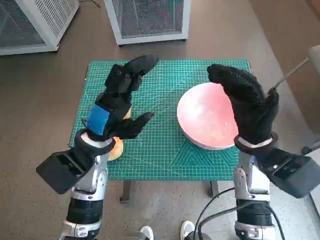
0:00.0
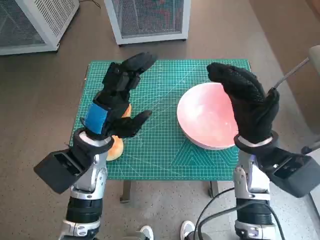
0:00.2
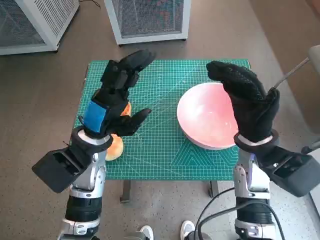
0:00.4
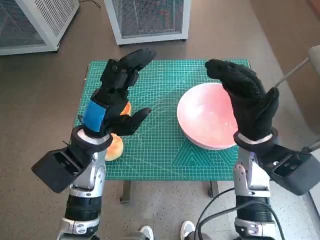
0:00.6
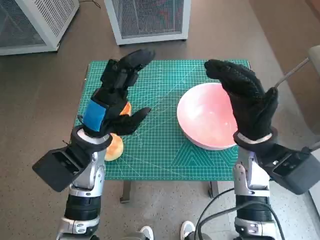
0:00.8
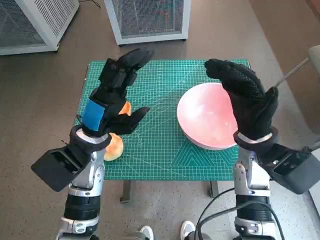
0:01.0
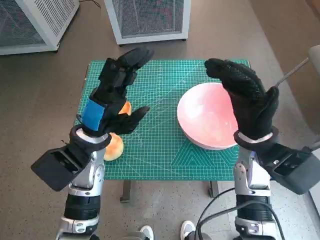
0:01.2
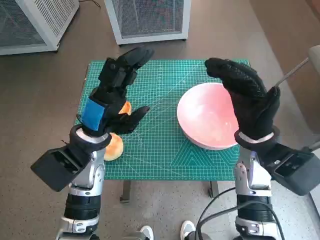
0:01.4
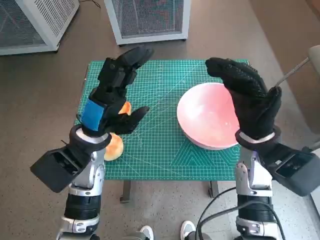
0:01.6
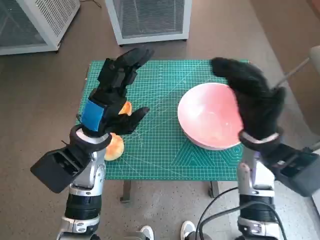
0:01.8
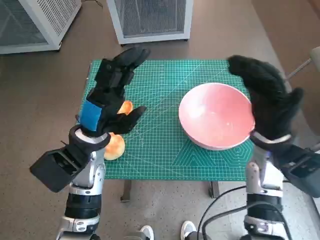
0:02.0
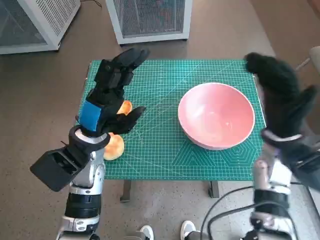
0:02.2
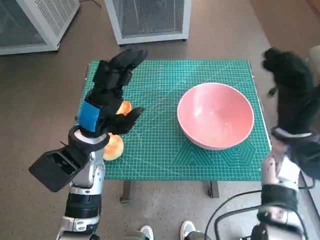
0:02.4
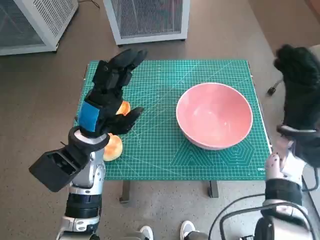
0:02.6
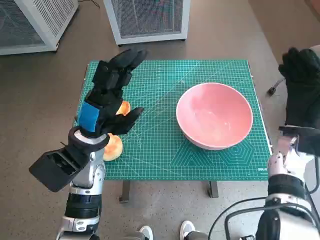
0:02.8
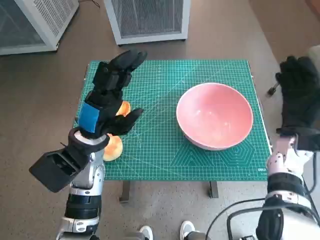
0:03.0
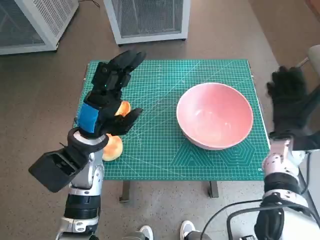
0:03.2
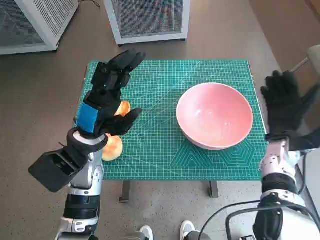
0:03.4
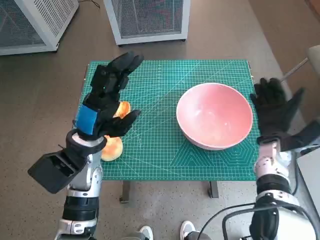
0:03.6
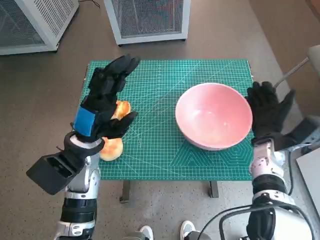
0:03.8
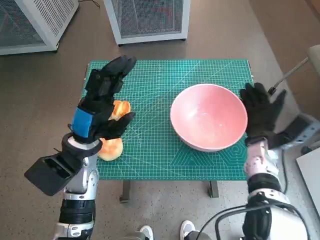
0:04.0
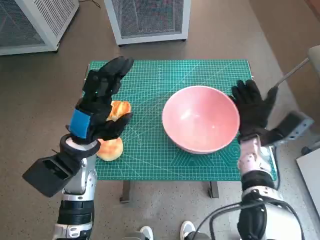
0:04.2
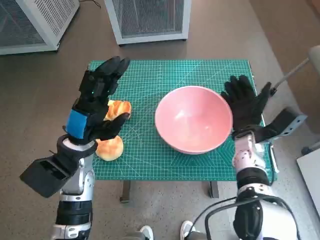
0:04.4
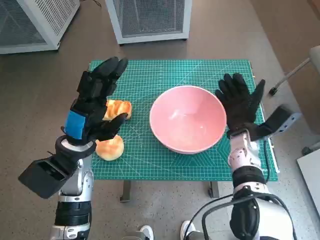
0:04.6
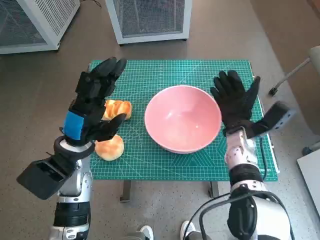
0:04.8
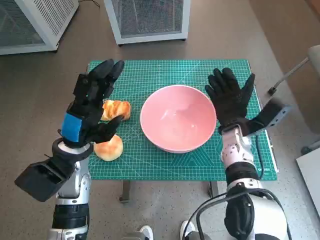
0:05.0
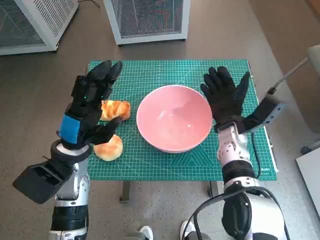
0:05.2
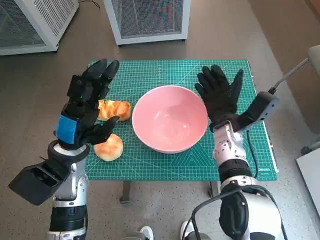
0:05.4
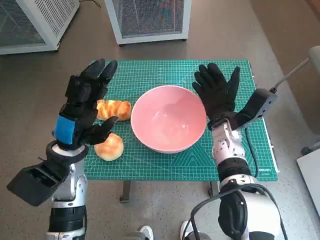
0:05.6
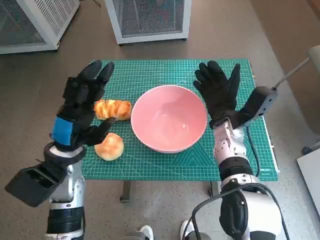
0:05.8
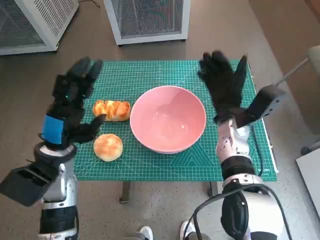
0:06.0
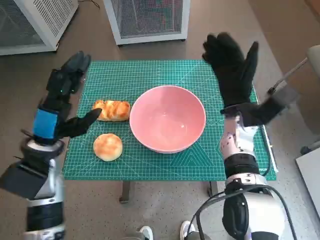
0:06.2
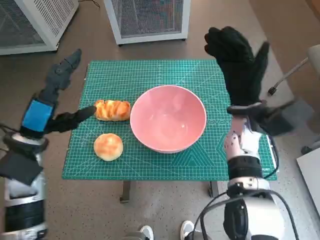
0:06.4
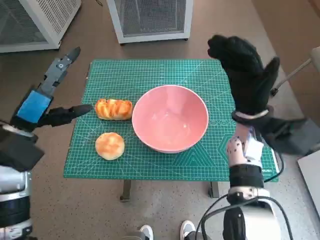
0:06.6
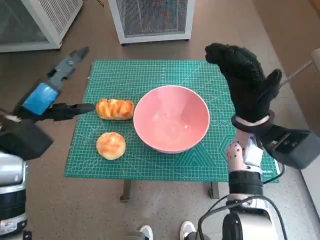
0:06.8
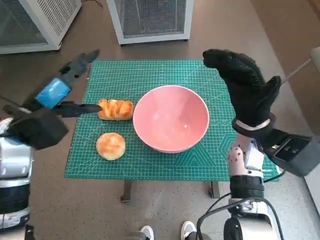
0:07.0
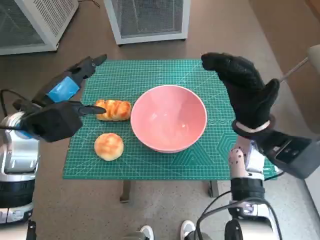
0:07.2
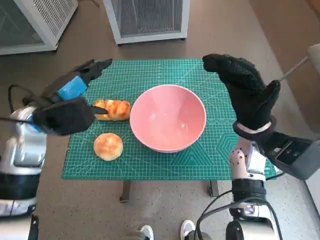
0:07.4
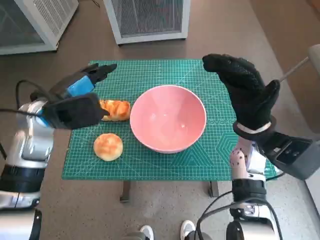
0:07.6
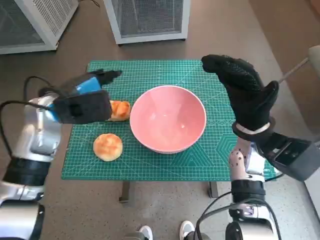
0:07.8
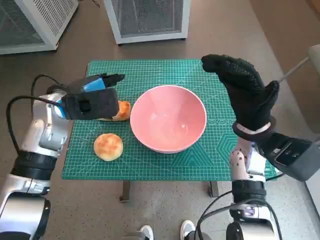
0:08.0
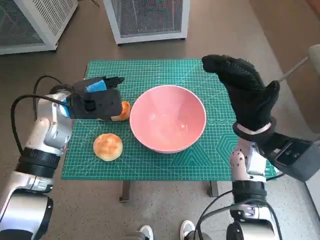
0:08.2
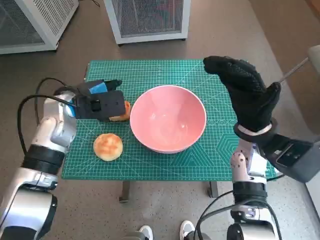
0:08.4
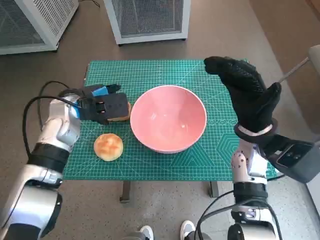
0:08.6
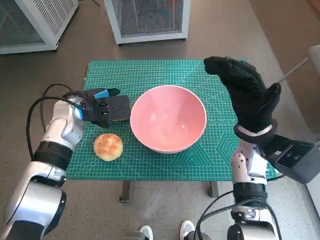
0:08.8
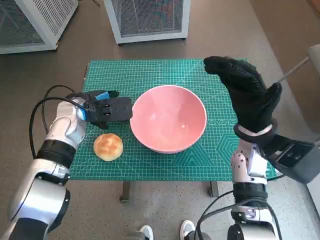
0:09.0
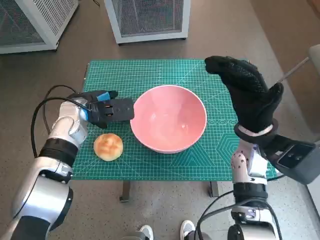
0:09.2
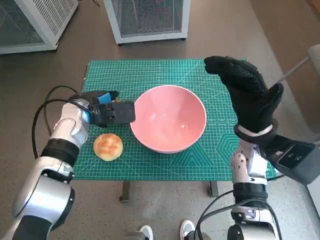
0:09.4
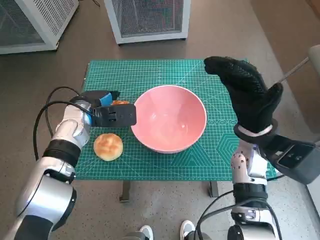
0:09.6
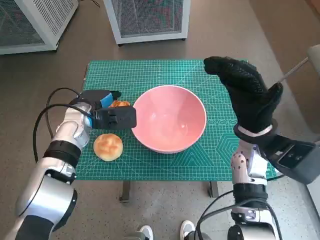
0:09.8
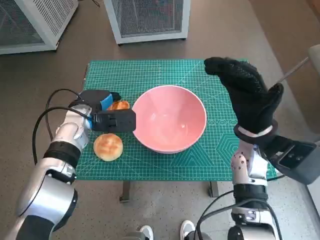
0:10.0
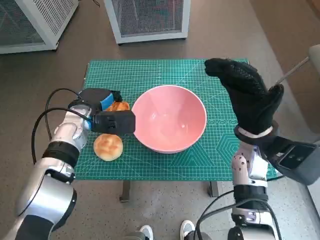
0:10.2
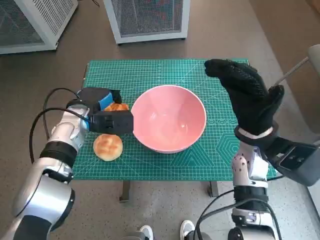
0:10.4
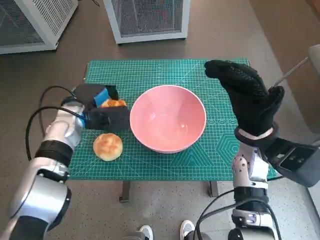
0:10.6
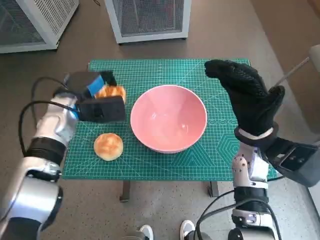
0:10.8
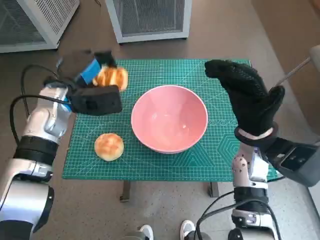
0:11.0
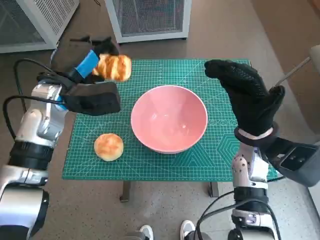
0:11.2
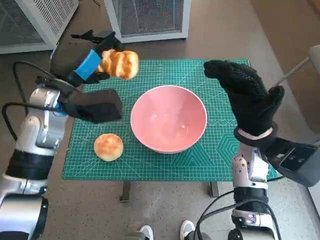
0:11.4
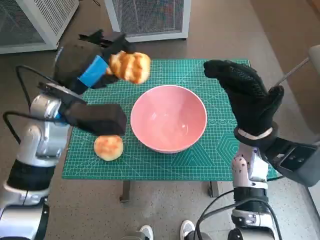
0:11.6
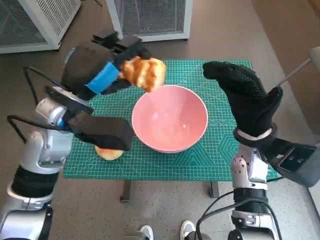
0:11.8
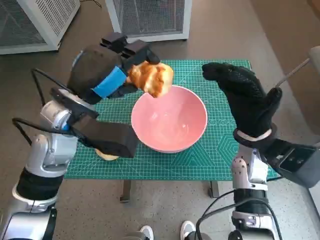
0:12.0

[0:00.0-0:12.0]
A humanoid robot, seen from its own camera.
Task of the whole recording: Push the bowl into the center of the table and put the bread into the bowl.
Step, 0:00.0 to 0:05.8: Move the pink bowl to the center of table with right hand.
Step, 0:06.0 to 0:10.0: Grasp the long bread with left hand.
0:01.6 to 0:03.0: The right hand goes about 10 cm to the right.
0:03.0 to 0:04.4: The right hand heads to the left, covering approximately 5 cm.
0:04.4 to 0:06.0: The right hand goes about 5 cm to the left.
0:06.0 to 0:07.6: The left hand is displaced upward and forward by approximately 10 cm, while the right hand moves roughly 5 cm.
0:07.6 to 0:09.0: The left hand goes about 5 cm downward.
0:09.0 to 0:10.4: There are only small adjustments of the hands.
0:10.4 to 0:12.0: The left hand moves upward and backward, some 15 cm.

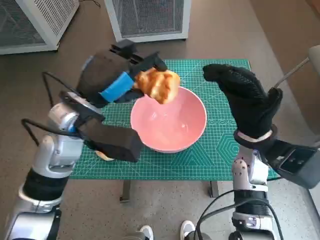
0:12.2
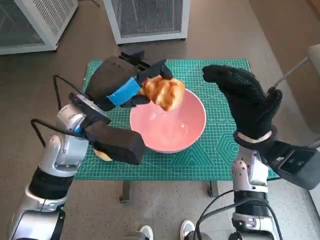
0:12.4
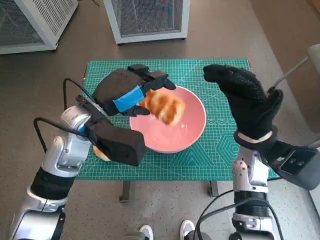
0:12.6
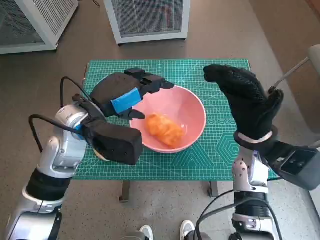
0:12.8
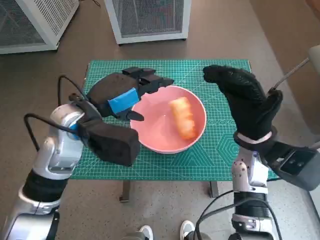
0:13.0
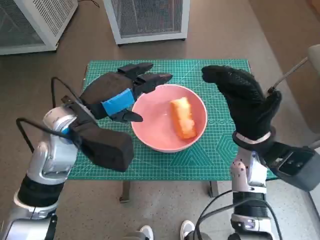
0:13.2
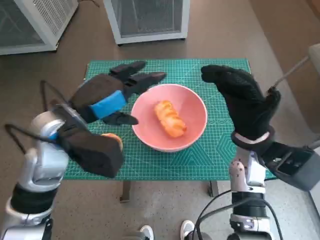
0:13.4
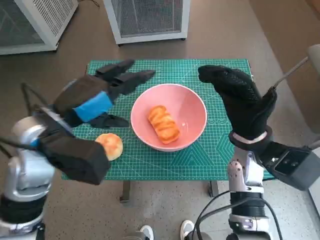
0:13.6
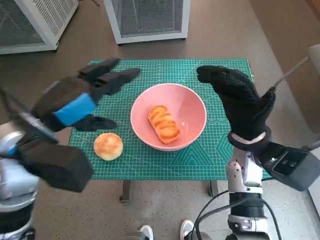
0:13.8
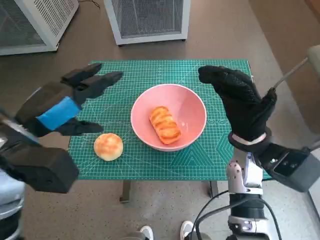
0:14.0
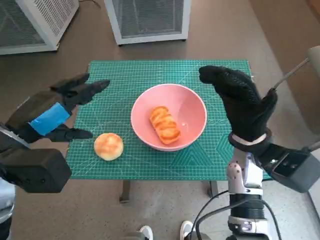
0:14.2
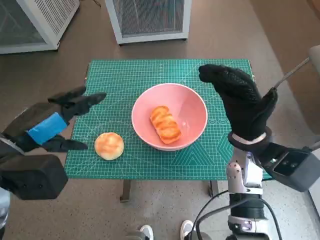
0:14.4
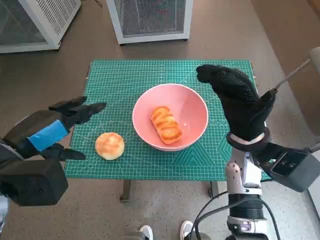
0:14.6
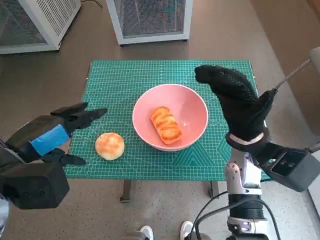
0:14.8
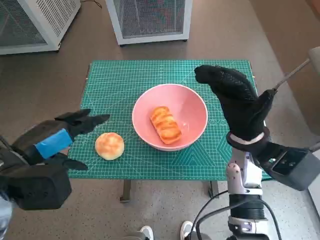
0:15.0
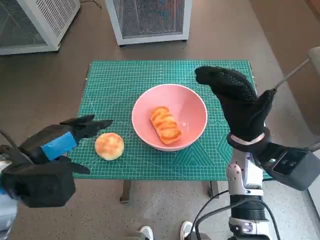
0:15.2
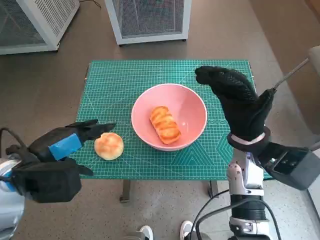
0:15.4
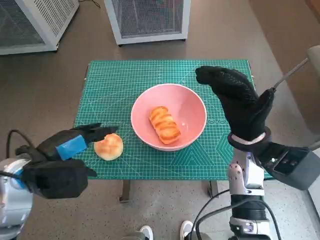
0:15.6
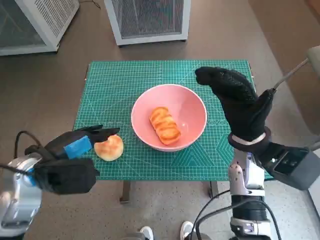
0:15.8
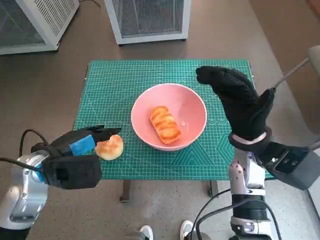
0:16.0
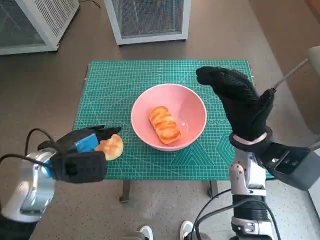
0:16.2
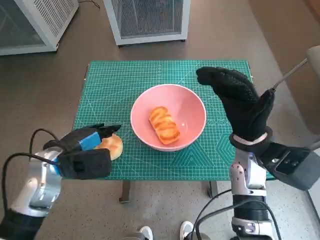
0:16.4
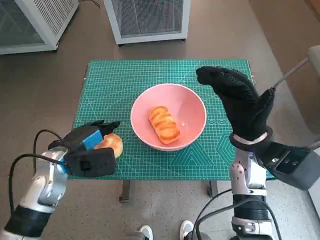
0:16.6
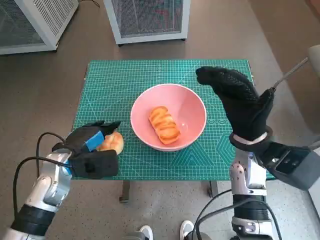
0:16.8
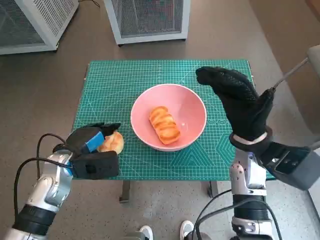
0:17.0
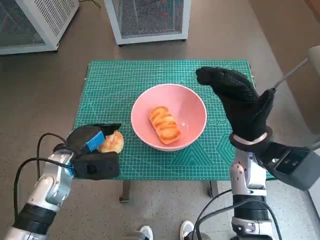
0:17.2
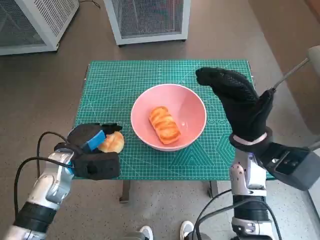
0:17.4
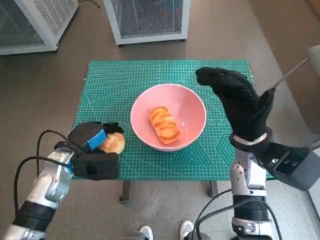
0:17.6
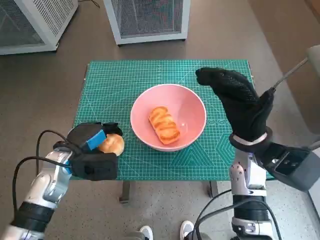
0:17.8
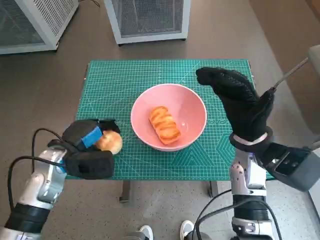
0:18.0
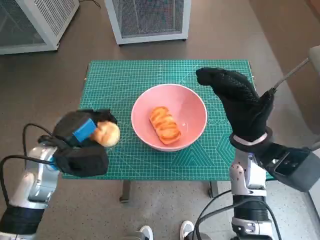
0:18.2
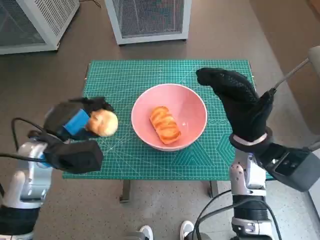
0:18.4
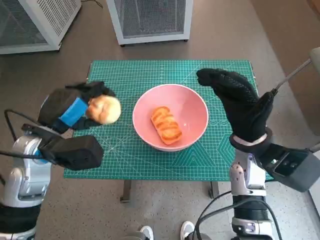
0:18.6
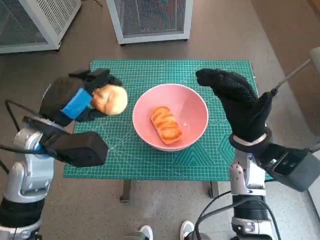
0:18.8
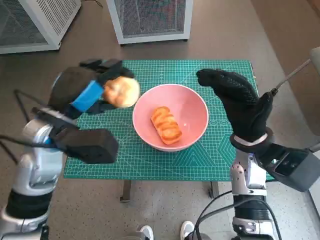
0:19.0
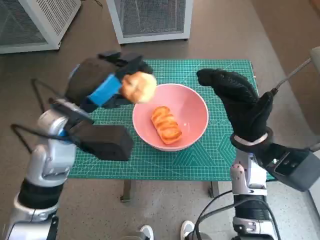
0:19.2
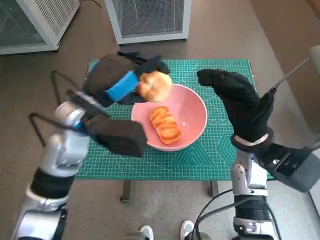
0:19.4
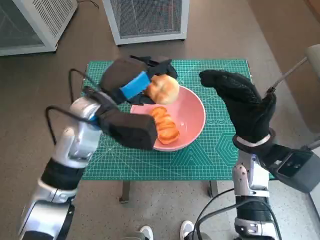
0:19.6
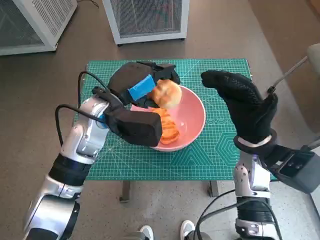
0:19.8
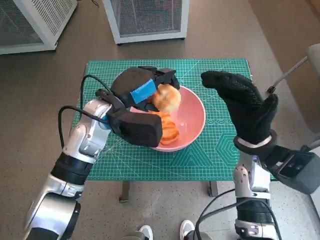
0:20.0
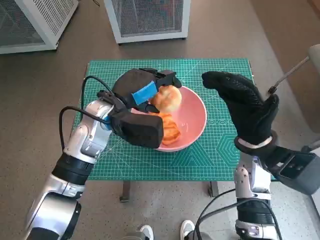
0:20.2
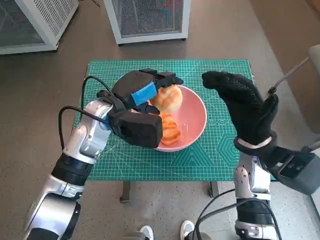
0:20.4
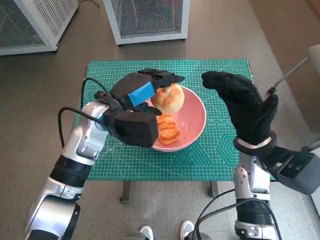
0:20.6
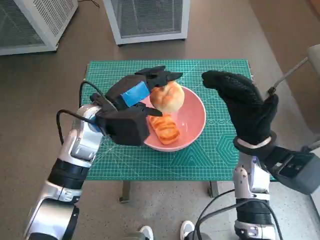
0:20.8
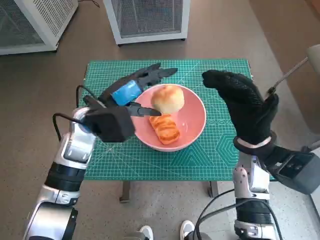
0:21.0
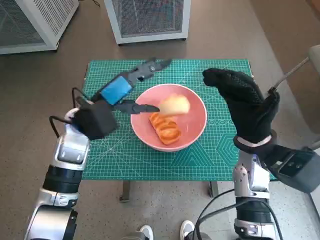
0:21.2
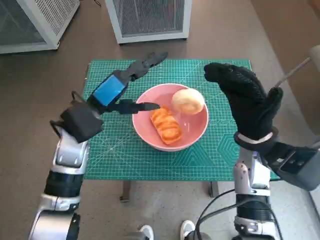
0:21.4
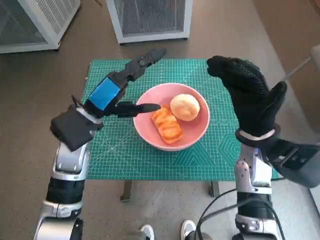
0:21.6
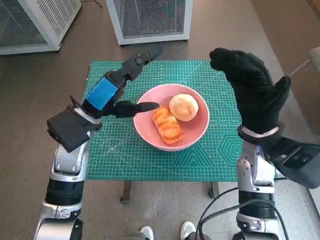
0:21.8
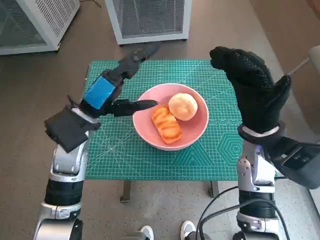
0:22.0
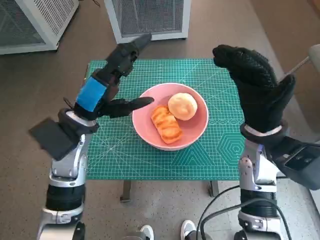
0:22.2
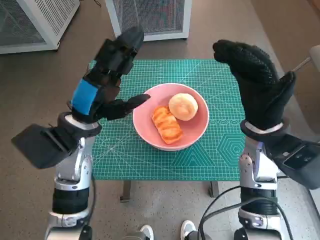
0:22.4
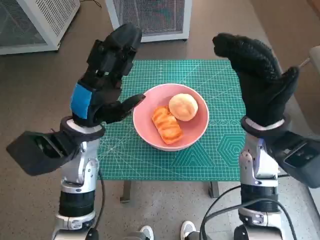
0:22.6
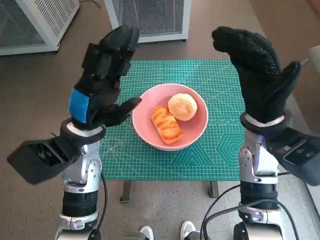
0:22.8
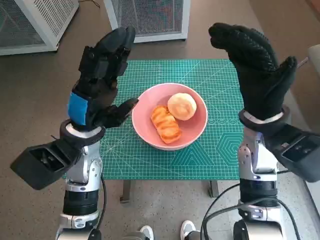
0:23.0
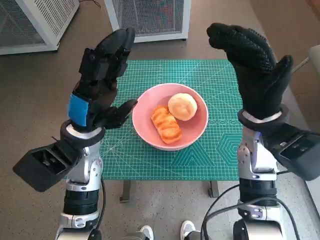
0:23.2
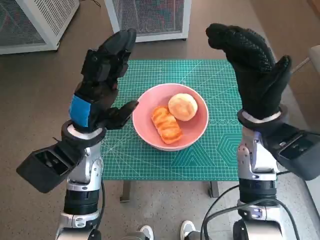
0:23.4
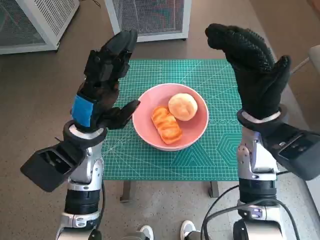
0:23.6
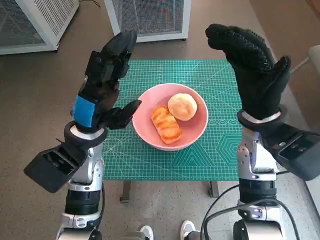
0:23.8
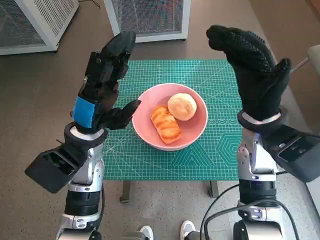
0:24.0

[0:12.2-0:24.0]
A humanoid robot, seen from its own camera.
Task of the whole recording: Push the bowl into the center of the table and put the bread into the bowl.
Step, 0:13.0 to 0:17.0: Grasp the round bread with left hand.
Step, 0:17.2 to 0:21.4: Place the round bread in pink bowl with left hand.
0:13.6 to 0:15.2: The left hand heads to the left and backward, covering about 10 cm.
0:15.2 to 0:16.6: The left hand shifts roughly 10 cm downward and forward.
0:16.6 to 0:18.2: There are only small adjustments of the hands.
0:18.2 to 0:19.6: The left hand heads to the right and upward, covering roughly 15 cm.
0:22.6 to 0:24.0: There are only small adjustments of the hands.
